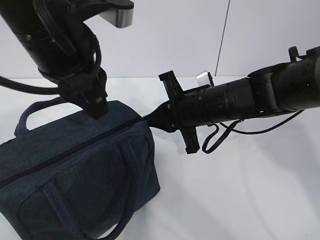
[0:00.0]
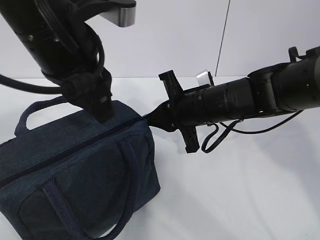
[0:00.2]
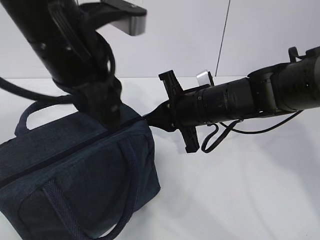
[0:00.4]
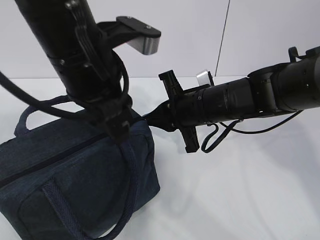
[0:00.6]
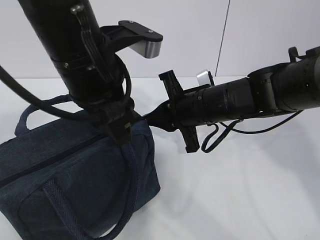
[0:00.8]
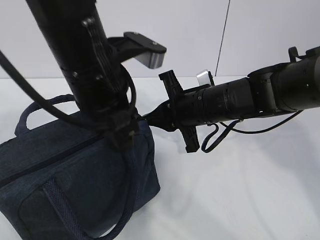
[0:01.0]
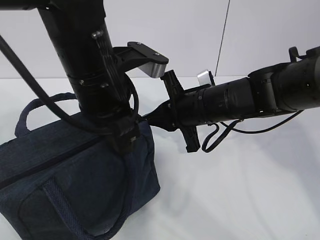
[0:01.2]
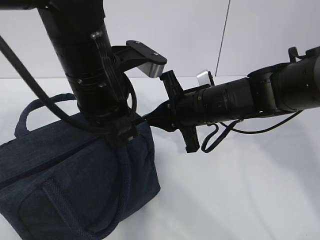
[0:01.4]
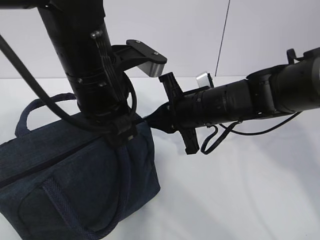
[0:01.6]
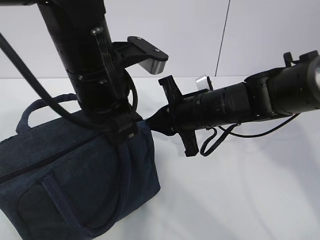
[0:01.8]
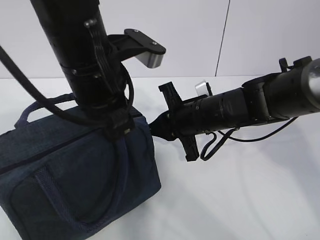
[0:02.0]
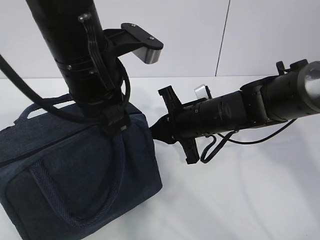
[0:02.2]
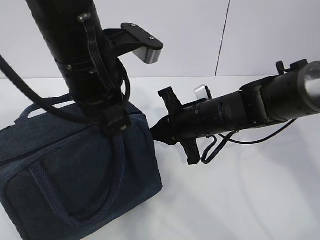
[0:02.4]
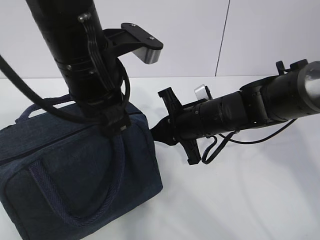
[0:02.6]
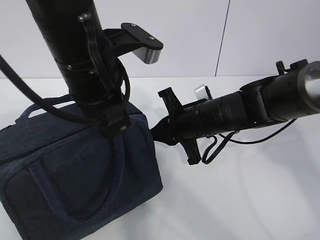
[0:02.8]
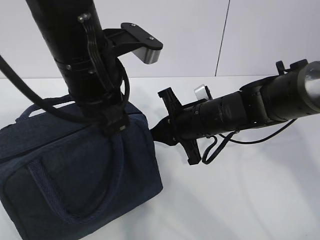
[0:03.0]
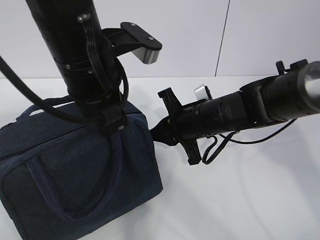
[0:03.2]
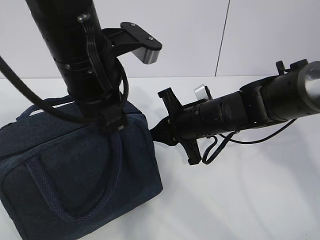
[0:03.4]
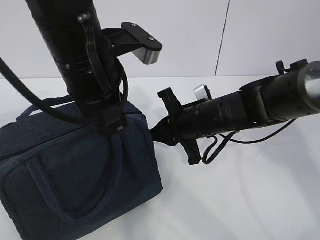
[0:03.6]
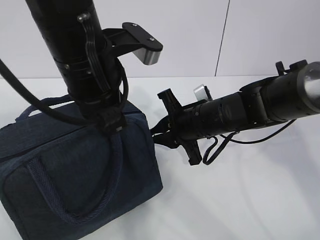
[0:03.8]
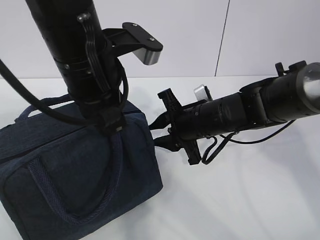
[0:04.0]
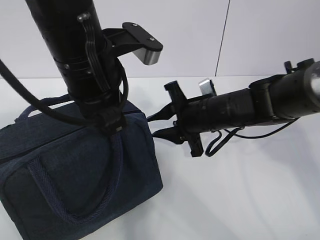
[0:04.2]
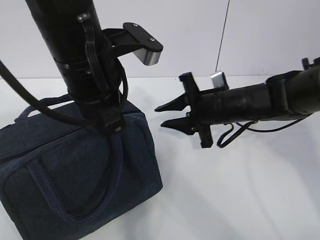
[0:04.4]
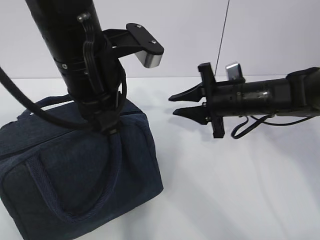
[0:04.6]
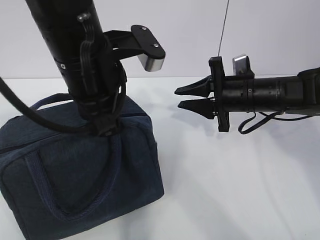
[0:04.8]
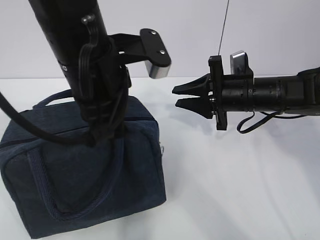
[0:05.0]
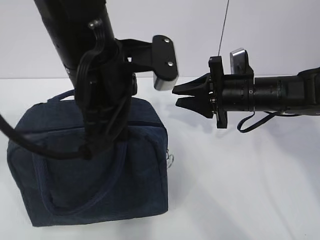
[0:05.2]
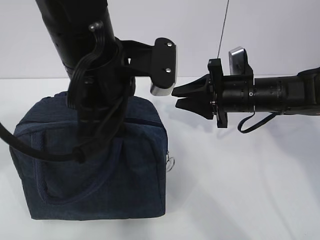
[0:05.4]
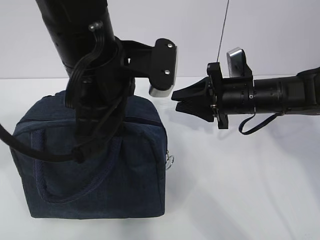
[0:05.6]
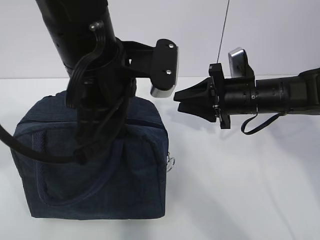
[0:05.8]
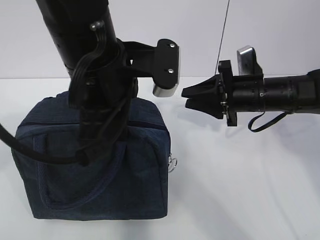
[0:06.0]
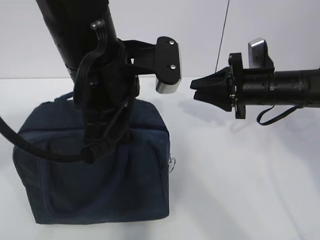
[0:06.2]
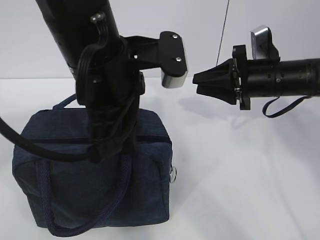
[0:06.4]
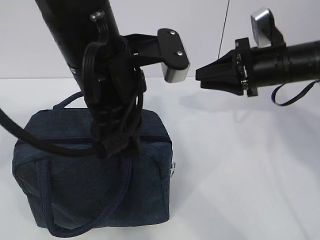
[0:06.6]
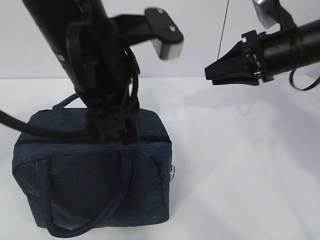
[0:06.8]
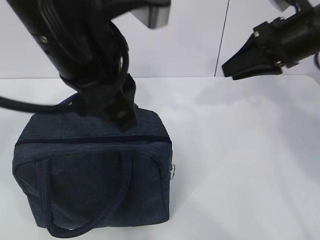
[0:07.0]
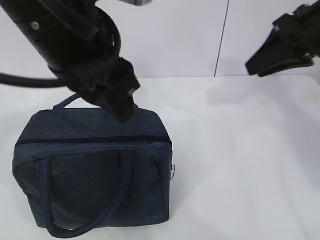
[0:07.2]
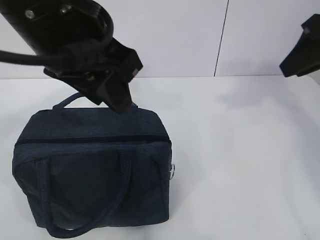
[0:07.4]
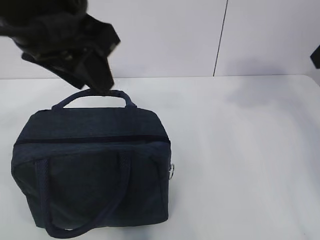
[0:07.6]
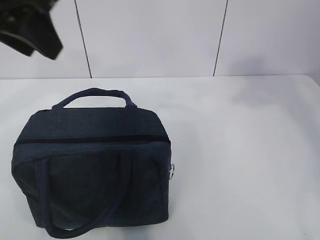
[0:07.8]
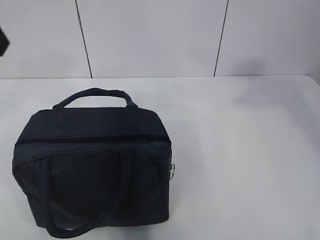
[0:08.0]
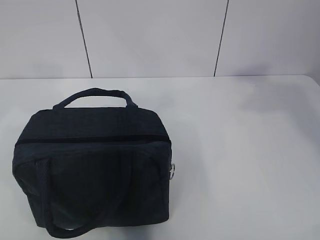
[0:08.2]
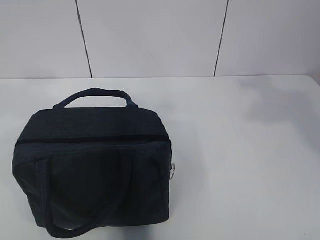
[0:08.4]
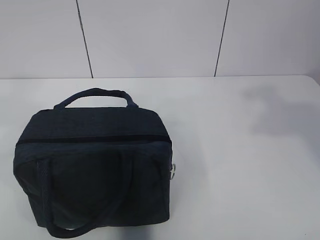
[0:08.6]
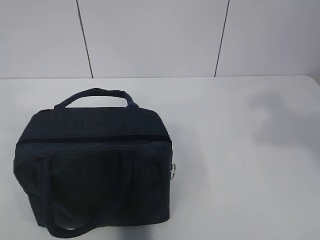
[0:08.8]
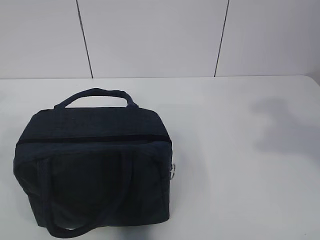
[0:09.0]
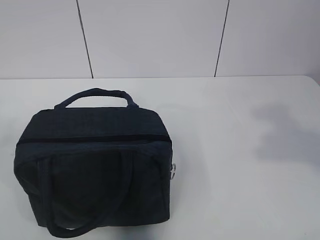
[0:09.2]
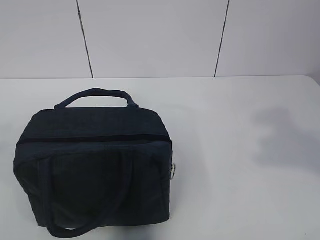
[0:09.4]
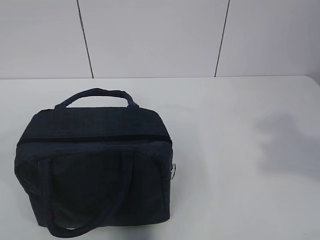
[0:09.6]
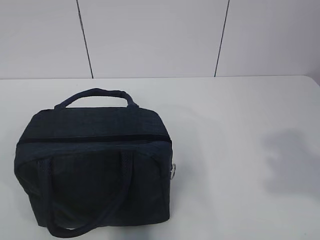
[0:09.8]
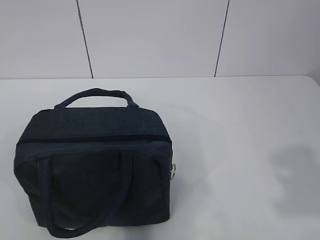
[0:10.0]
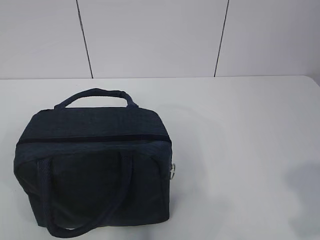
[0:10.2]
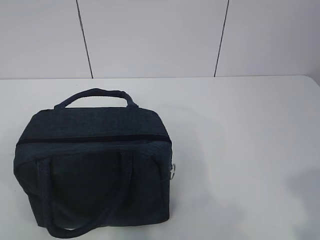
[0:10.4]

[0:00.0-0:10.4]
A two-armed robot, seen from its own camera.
0:00.0 to 0:01.4: The left gripper moves downward, about 5 cm, and closes its fingers.
0:01.4 to 0:03.0: There are only small adjustments of the grippers.
0:03.0 to 0:04.4: The right gripper opens its fingers.
0:04.4 to 0:06.0: The right gripper is displaced to the right by roughly 5 cm.
0:06.0 to 0:07.4: The left gripper shifts roughly 5 cm upward, and opens its fingers; the right gripper moves upward and backward, roughly 20 cm.
0:07.4 to 0:09.0: The right gripper goes about 20 cm backward. Meanwhile the left gripper moves to the left, backward and upward, about 30 cm.
0:09.0 to 0:10.4: The two grippers go approximately 15 cm downward and backward.

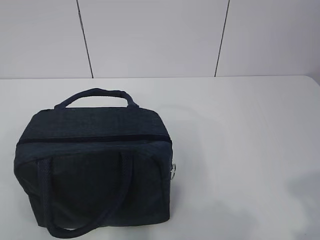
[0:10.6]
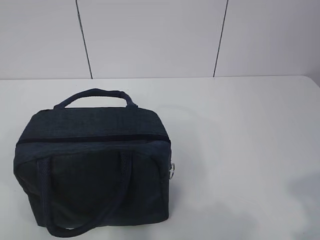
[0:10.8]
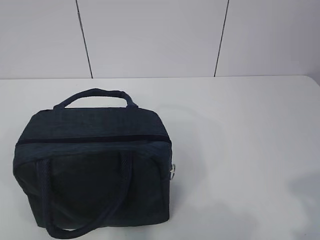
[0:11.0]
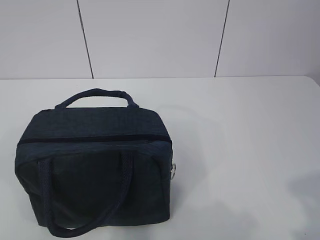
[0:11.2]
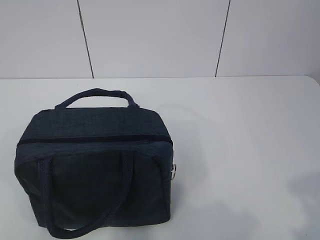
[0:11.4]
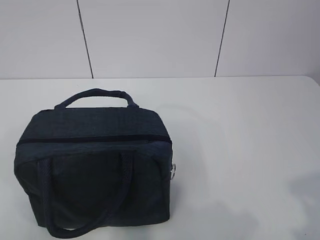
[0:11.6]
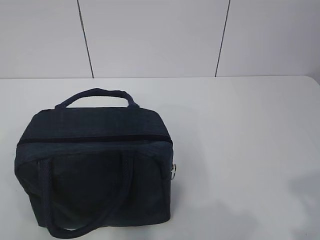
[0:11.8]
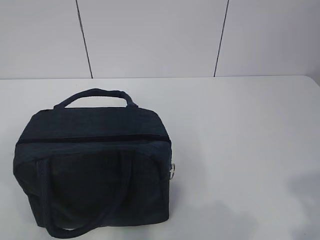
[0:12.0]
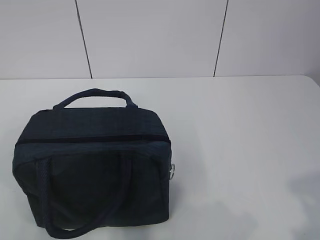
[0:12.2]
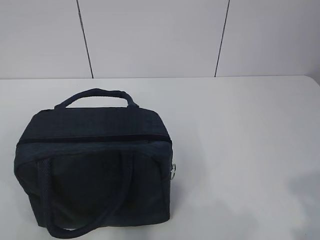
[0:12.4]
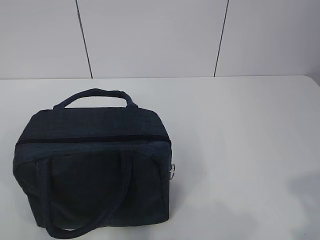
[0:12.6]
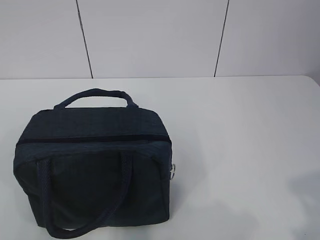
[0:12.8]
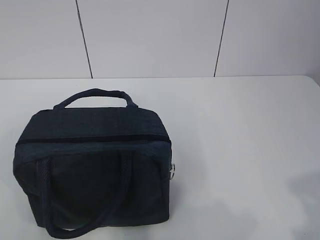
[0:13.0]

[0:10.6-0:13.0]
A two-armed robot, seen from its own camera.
0:11.8 to 0:13.0: The two grippers keep their place.
